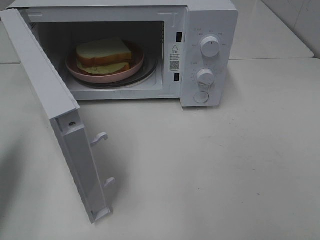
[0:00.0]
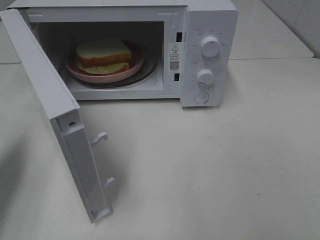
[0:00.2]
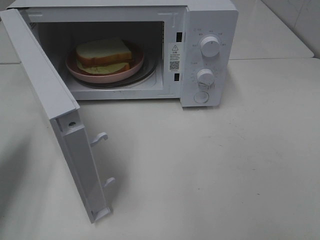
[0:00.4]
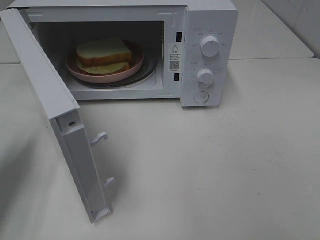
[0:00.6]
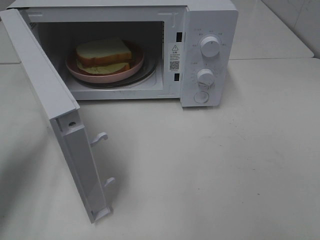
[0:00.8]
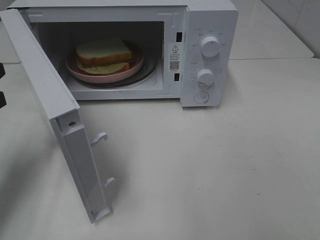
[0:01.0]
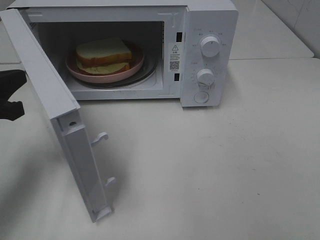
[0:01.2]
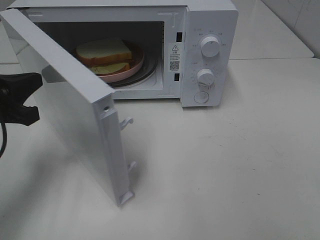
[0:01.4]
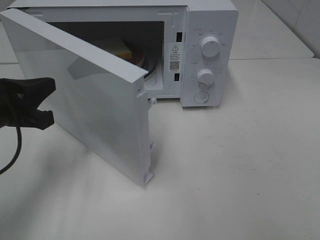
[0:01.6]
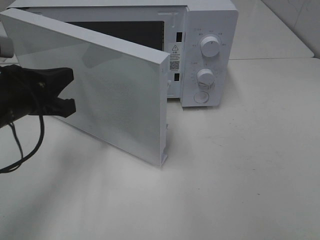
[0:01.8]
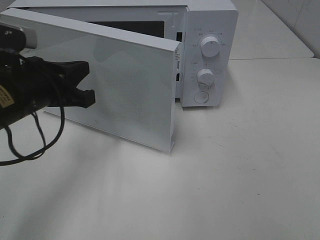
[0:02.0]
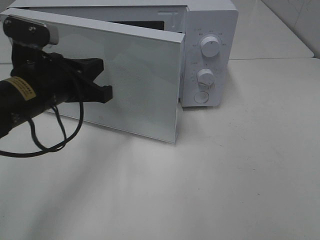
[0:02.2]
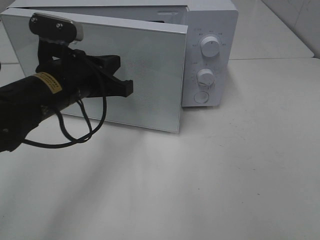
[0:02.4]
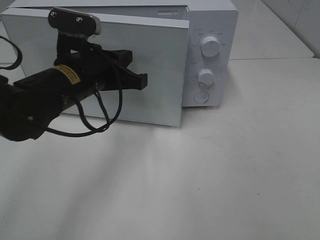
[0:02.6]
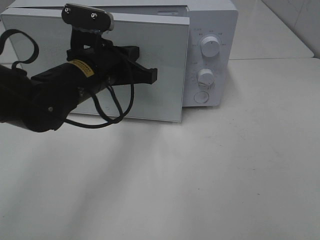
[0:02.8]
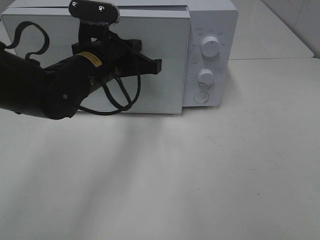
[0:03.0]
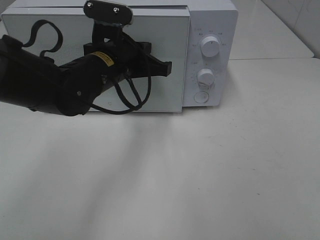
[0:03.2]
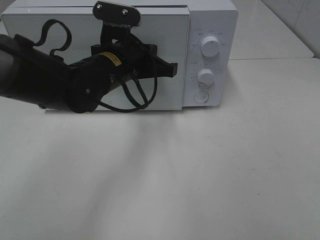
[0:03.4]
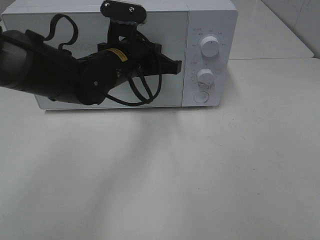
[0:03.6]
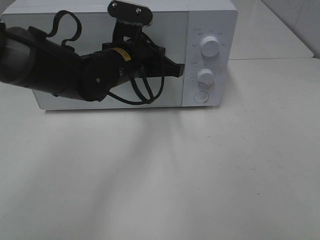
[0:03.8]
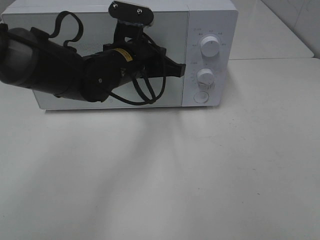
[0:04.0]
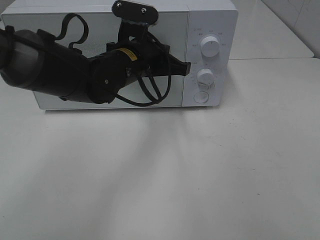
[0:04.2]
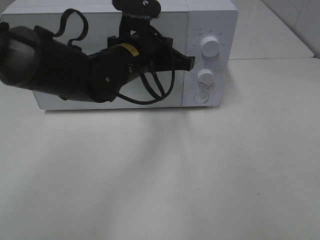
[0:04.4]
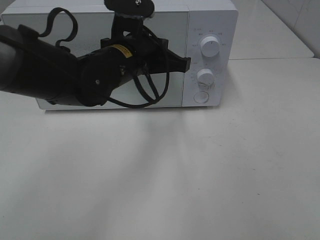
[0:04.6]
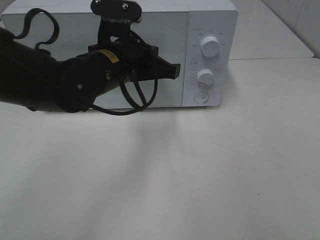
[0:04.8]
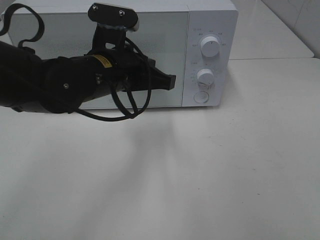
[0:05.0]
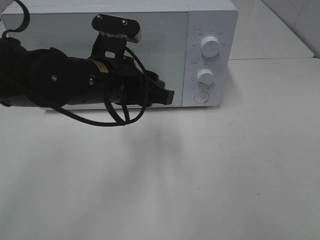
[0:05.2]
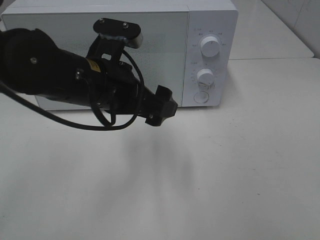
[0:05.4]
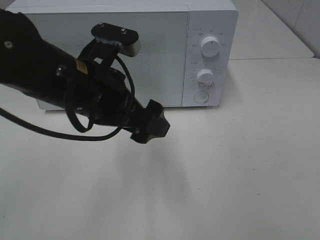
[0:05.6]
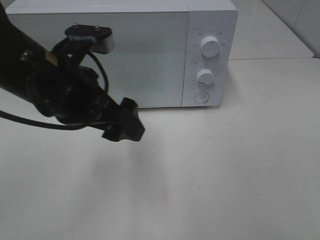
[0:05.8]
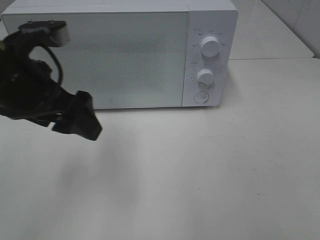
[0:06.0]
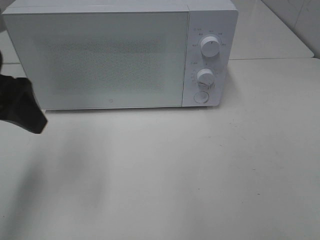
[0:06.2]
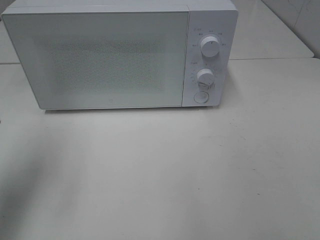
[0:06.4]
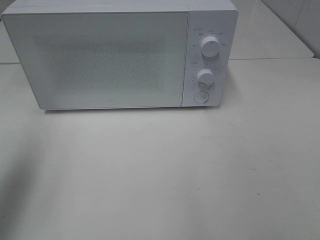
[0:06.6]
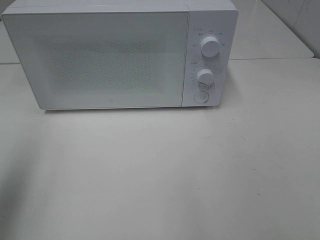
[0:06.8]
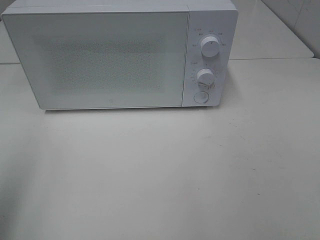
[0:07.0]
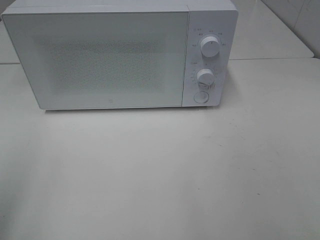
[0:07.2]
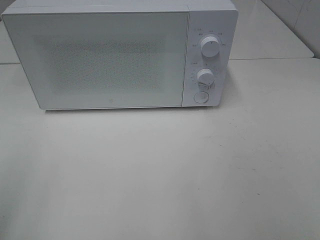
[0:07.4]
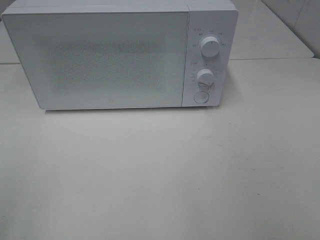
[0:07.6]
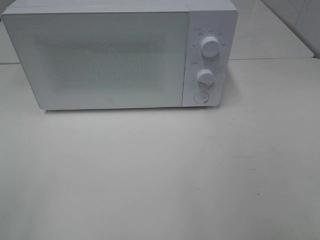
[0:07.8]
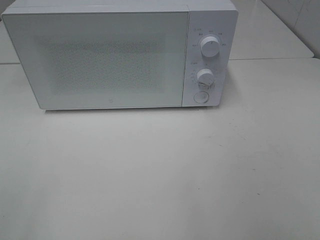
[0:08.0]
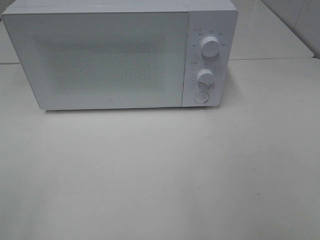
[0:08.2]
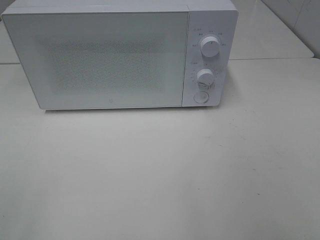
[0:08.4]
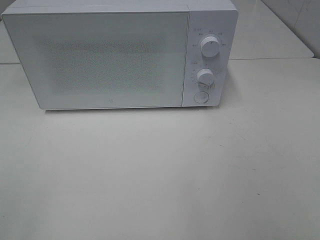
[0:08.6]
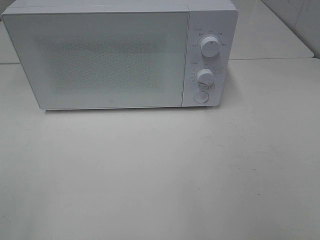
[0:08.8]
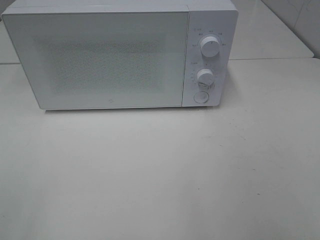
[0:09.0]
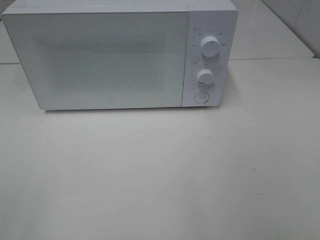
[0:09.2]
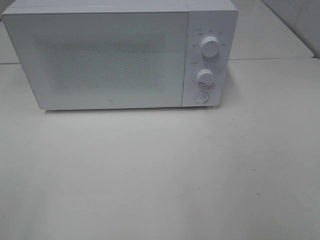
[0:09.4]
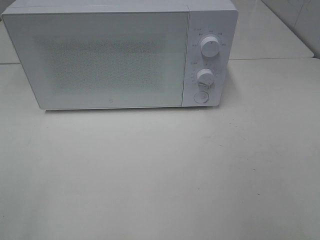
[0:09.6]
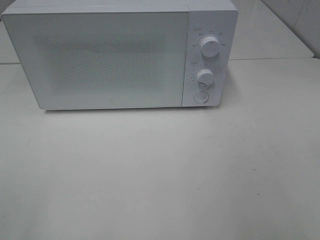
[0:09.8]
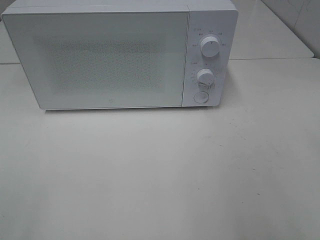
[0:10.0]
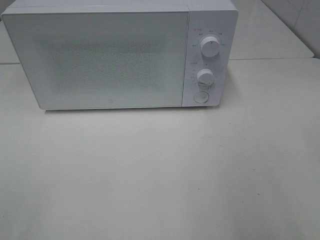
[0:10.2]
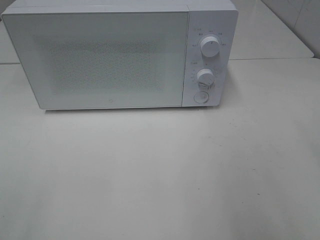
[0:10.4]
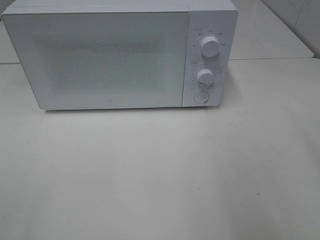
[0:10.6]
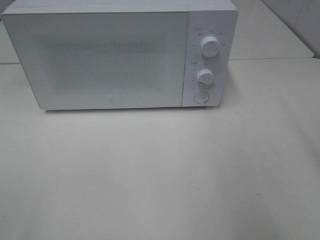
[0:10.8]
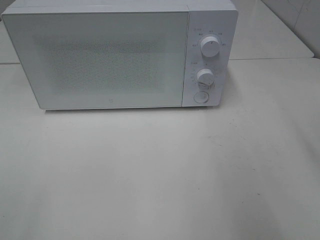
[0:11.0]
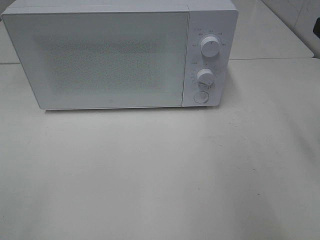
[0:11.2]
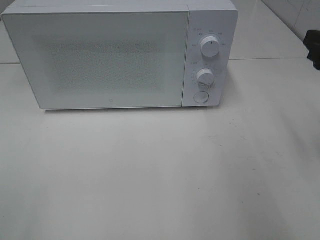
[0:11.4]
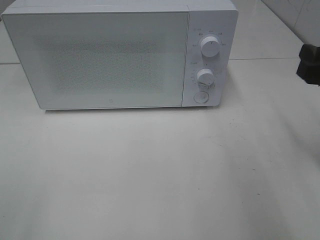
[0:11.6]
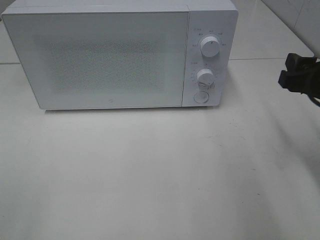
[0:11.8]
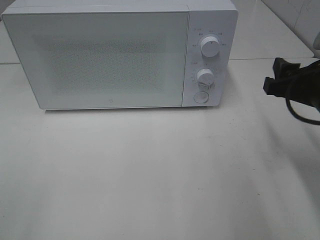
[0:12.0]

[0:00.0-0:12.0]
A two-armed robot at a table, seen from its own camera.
Task of the whole recording: Heat Sandwich.
Step, 0:00.0 to 0:04.4: Left hand: close the microwave door.
0:00.0 to 0:01.6: The left gripper shifts approximately 10 cm to the right and downward.
0:01.6 to 0:03.0: The left gripper heads to the right and forward, covering roughly 15 cm.
0:03.0 to 0:04.4: The left gripper goes approximately 5 cm to the right.
0:04.4 to 0:06.0: The left gripper travels to the left, backward and upward by approximately 20 cm, and opens up.
0:06.0 to 0:07.6: The left gripper travels backward and to the left by about 25 cm.
0:10.4 to 0:12.0: The right gripper shifts about 15 cm downward and forward.

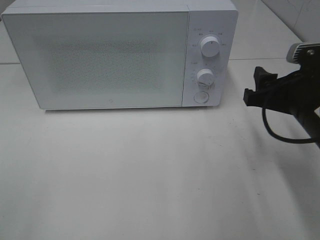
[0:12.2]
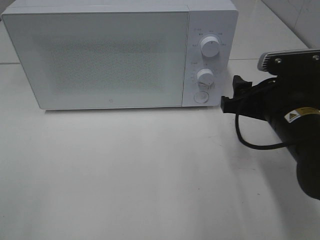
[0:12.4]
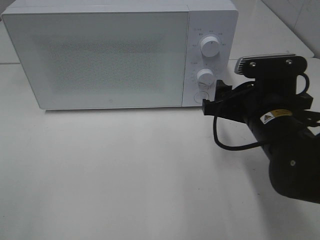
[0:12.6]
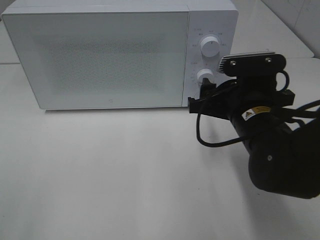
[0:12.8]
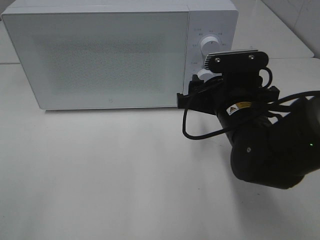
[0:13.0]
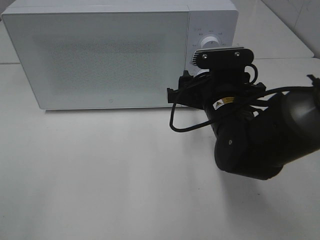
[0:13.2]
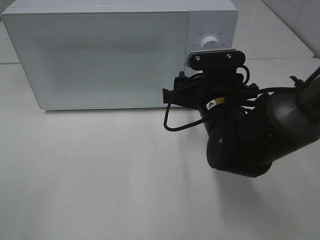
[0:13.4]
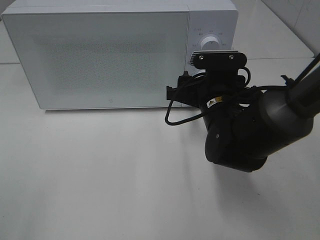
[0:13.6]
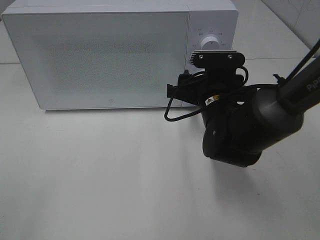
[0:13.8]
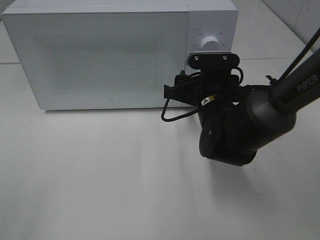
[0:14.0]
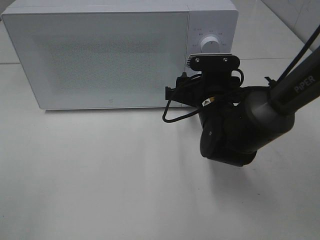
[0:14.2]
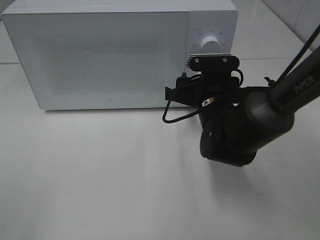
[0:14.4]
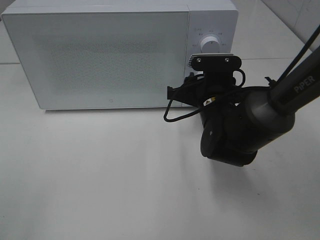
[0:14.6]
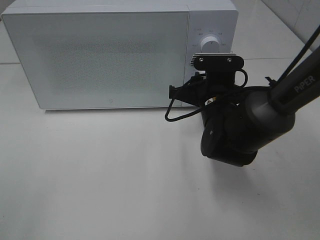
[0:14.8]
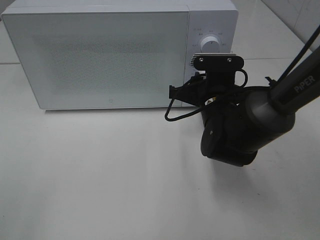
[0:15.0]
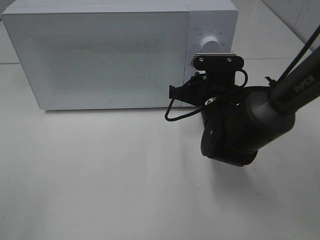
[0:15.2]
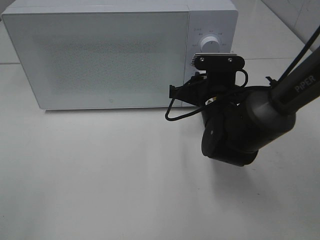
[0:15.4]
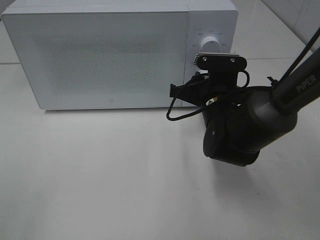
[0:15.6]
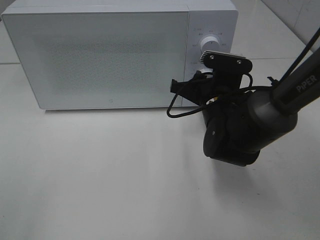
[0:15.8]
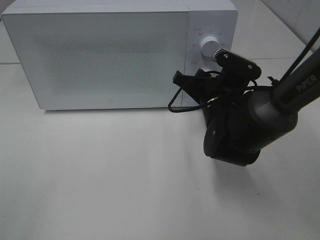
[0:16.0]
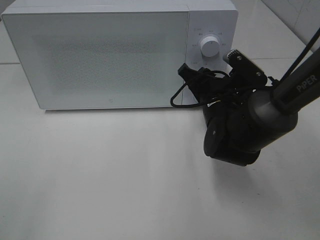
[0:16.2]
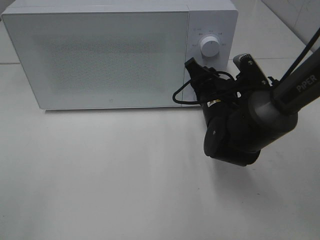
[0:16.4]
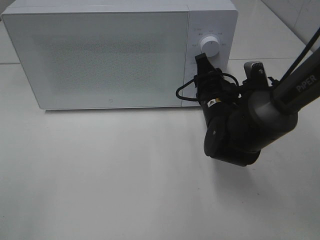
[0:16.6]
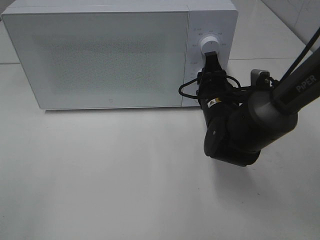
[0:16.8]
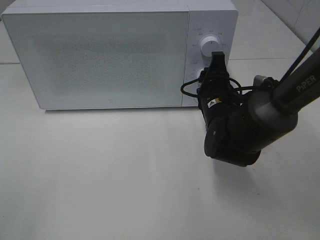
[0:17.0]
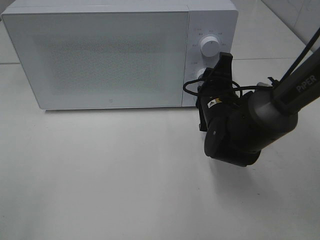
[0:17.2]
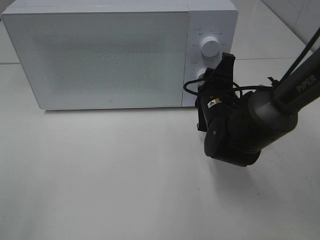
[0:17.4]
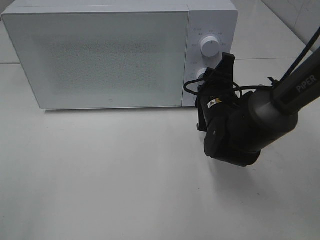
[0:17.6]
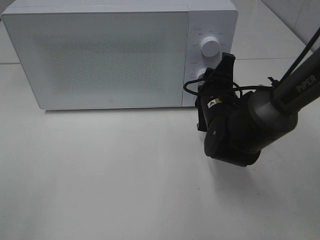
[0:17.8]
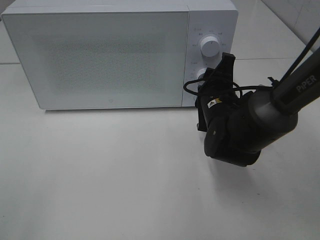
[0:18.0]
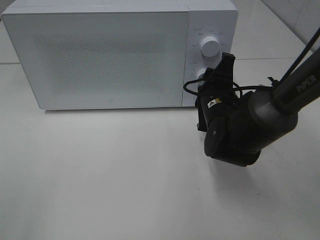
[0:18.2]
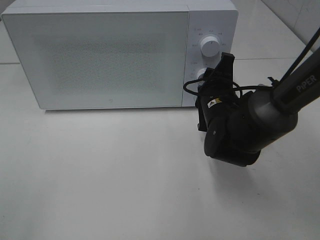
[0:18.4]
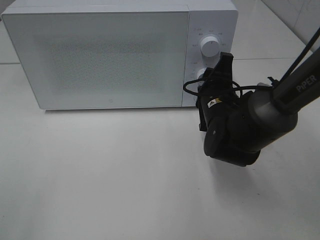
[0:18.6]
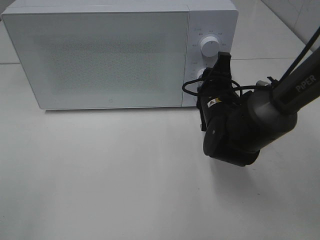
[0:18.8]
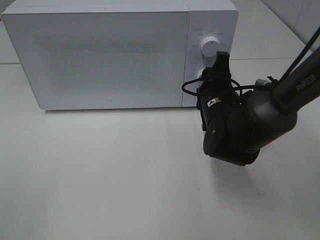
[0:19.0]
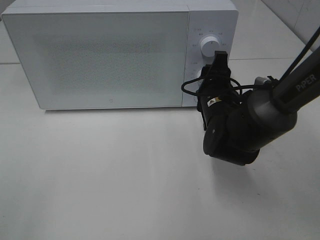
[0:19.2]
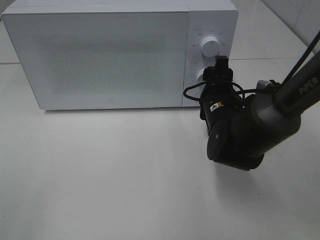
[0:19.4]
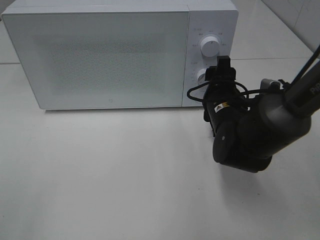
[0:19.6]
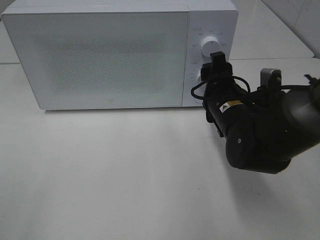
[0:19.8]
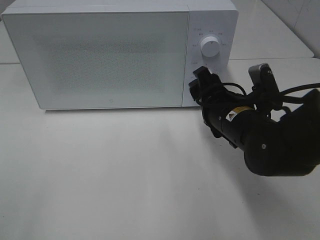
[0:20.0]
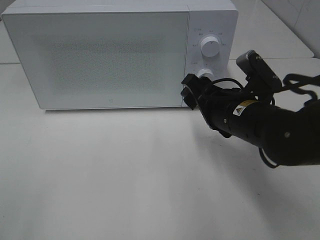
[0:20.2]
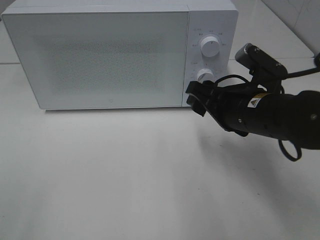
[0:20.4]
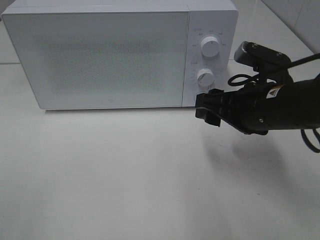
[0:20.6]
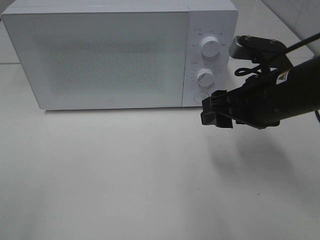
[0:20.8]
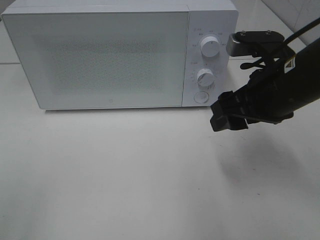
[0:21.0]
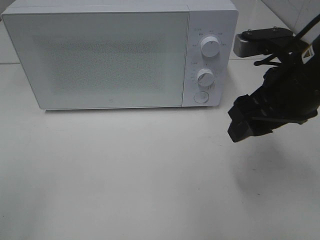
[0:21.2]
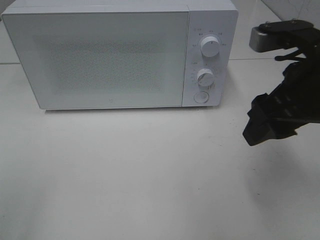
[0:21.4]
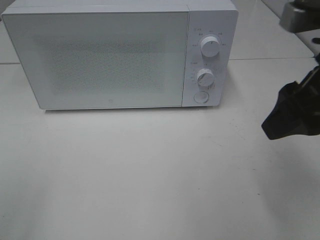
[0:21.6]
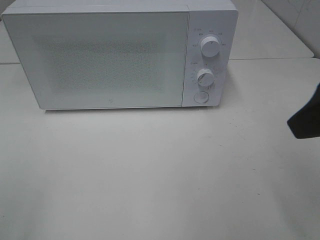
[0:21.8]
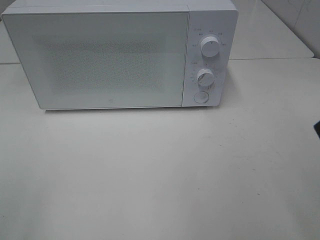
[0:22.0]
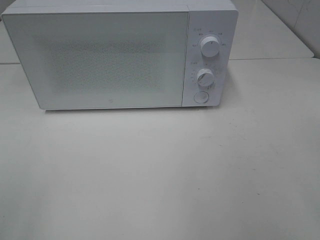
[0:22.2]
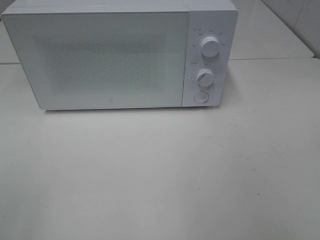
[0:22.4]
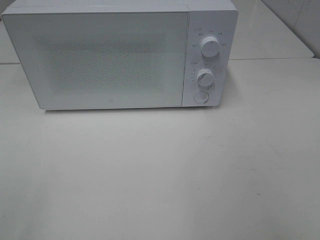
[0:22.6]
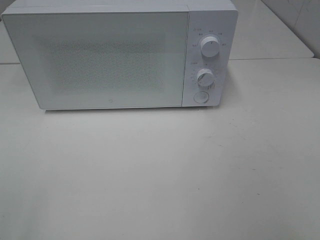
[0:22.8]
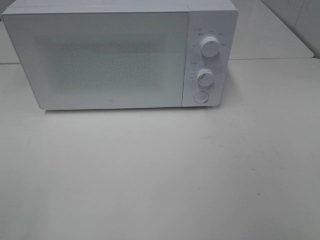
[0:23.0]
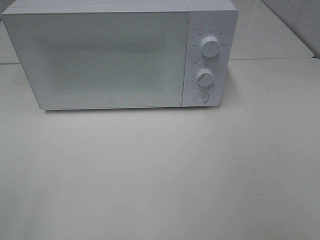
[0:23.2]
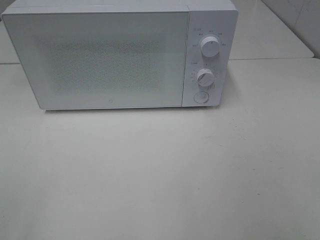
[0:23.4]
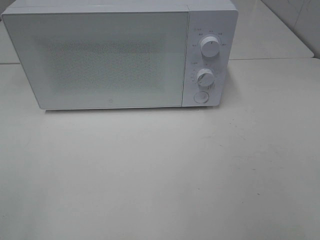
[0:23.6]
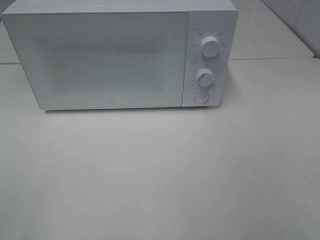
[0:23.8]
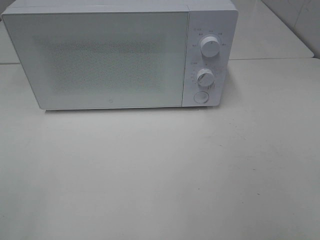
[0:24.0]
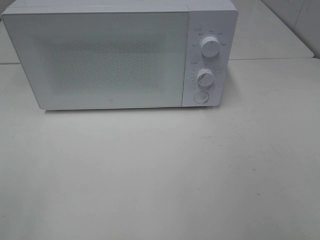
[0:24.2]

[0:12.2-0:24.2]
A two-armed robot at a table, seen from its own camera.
Task of the whole recording: Heat Sandwich.
Step, 0:12.2 to 0:19.8: Right hand: twist timer button.
0:12.2 to 0:13.8: The right gripper goes about 15 cm to the left, forward and downward.
0:13.8 to 0:15.2: The right gripper closes up.
0:19.8 to 0:21.2: The right gripper moves upward and backward, roughly 15 cm.
0:21.2 to 0:22.6: The right gripper moves backward, to the right and upward, some 25 cm.
